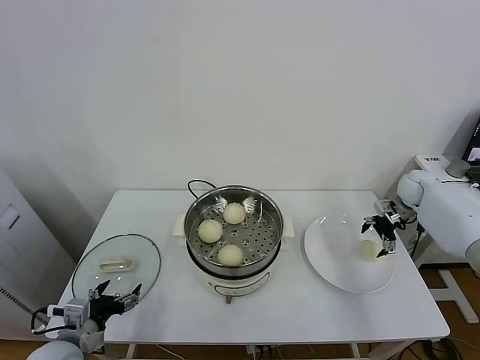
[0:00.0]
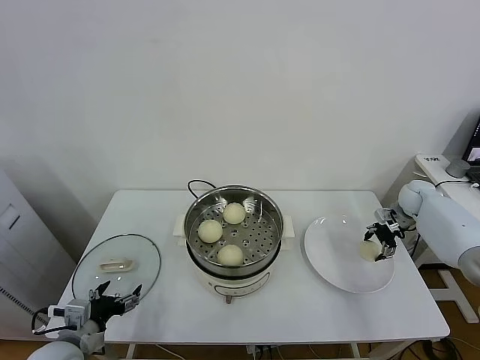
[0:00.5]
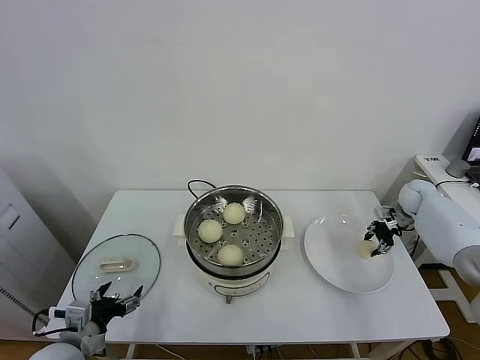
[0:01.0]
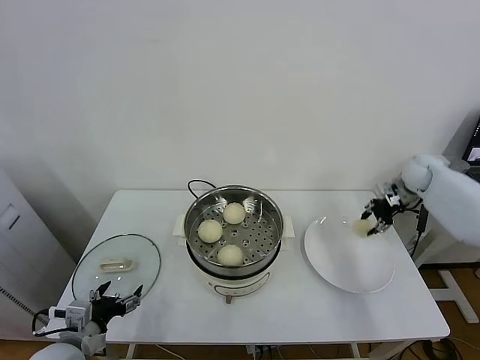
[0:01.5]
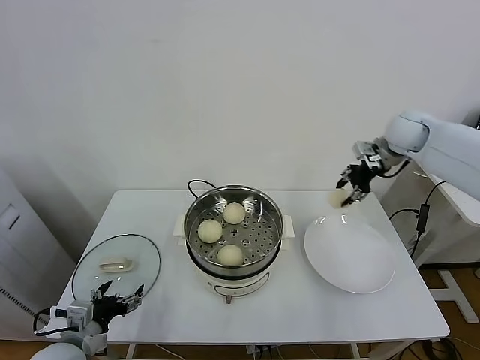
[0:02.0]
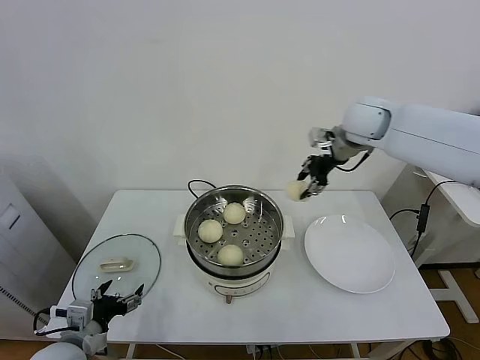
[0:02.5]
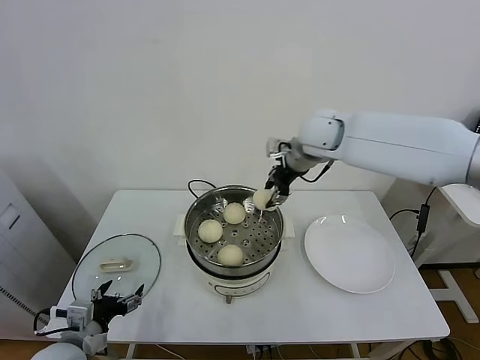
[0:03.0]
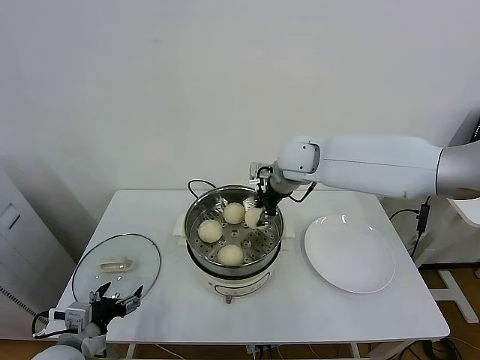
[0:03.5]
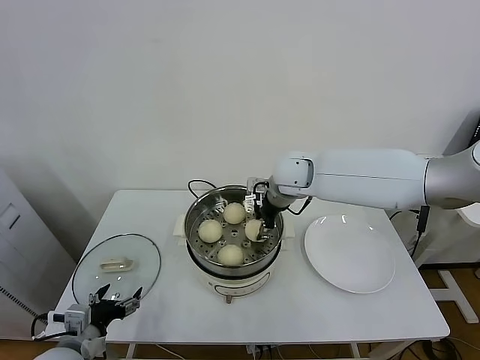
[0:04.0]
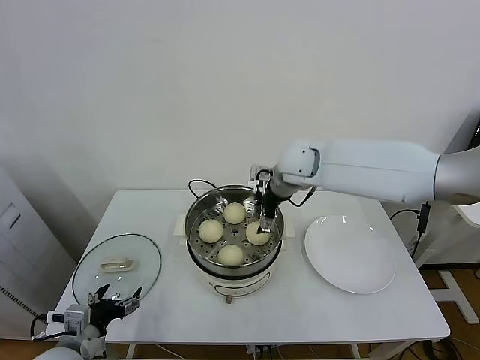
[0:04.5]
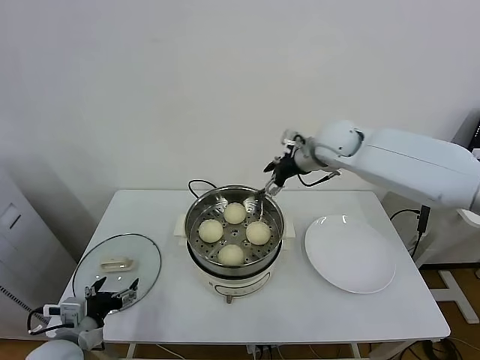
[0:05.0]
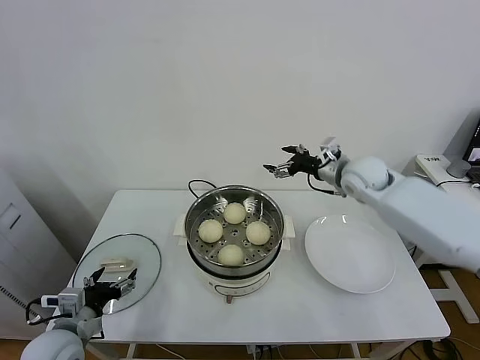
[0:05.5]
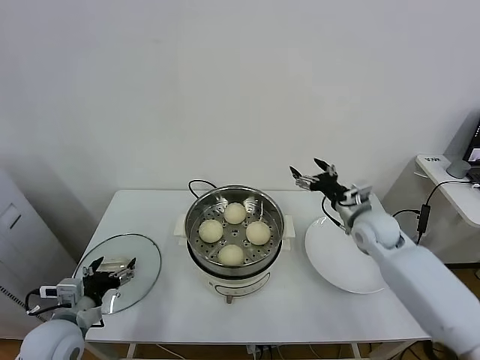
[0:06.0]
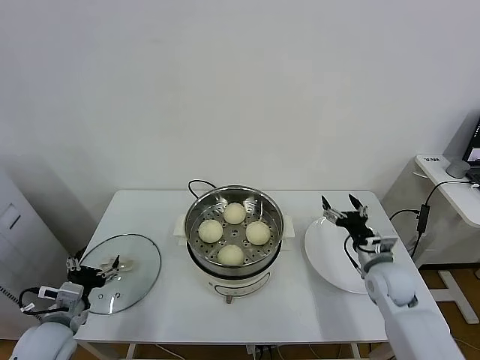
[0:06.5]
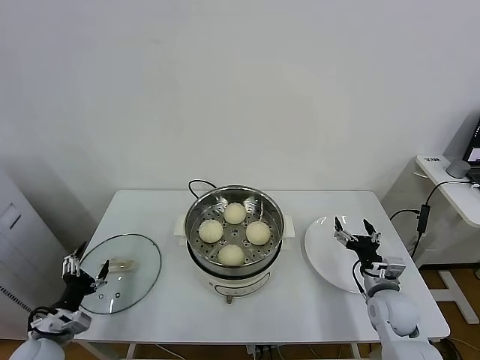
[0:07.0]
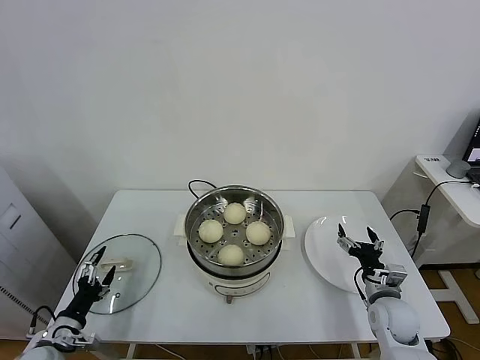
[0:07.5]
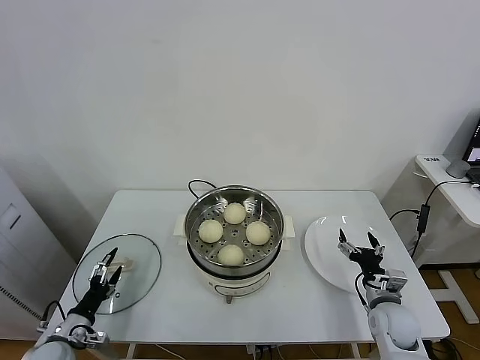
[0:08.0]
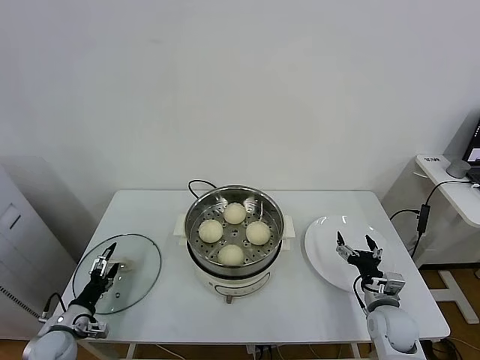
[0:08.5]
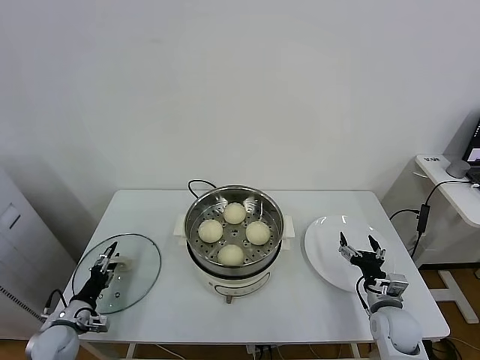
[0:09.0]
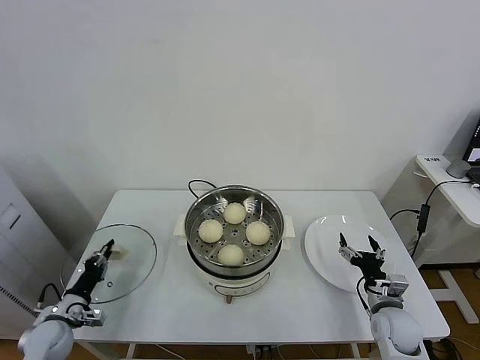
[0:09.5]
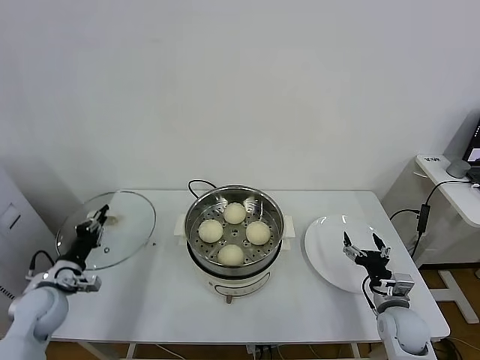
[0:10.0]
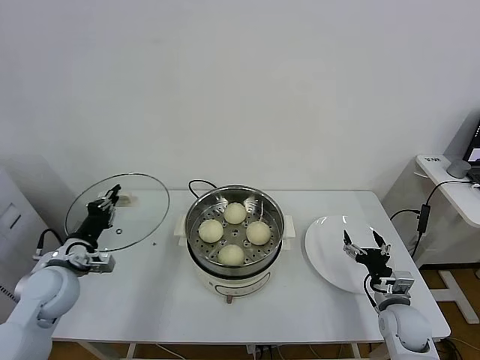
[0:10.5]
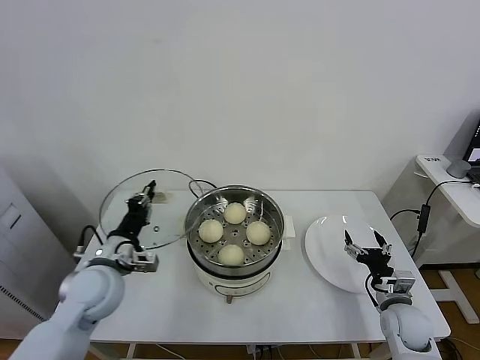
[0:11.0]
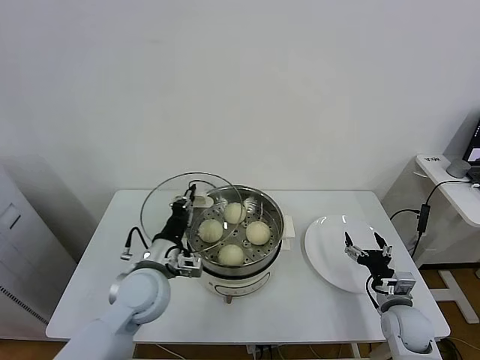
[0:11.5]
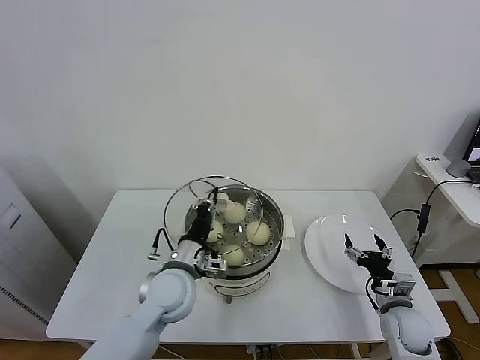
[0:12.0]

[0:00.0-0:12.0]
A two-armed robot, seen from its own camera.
Task of the whole recording: take steamed baozi put them in steamer.
Step, 0:01.0 to 0:04.0: Place the baozi on the steamer with right gripper.
Step, 0:04.5 to 0:09.5: Grasp the pot lid with left gripper.
0:00.0 to 0:02.0: The right gripper goes roughly 20 cm upward and to the left, and closes up.
0:02.0 to 0:04.0: The right gripper is displaced to the left by some 25 cm.
0:04.0 to 0:06.0: The right gripper goes about 25 cm to the right and downward, and opens up.
0:06.0 to 0:08.0: The right gripper heads downward and backward, covering some 20 cm; the left gripper is displaced downward and to the left by about 15 cm.
0:08.0 to 0:10.0: The left gripper is displaced upward and forward by roughly 10 cm, and closes up.
0:10.0 to 0:12.0: The left gripper shifts some 30 cm to the right.

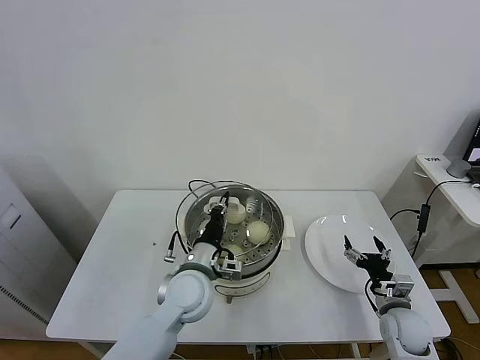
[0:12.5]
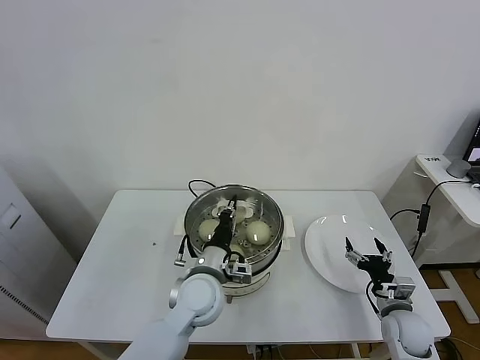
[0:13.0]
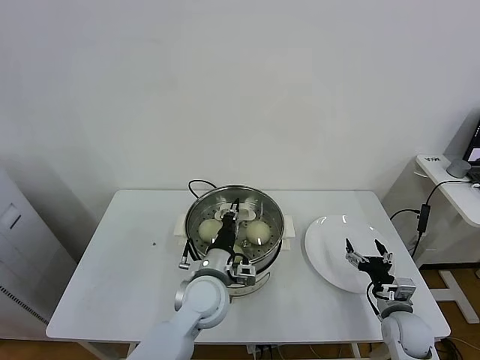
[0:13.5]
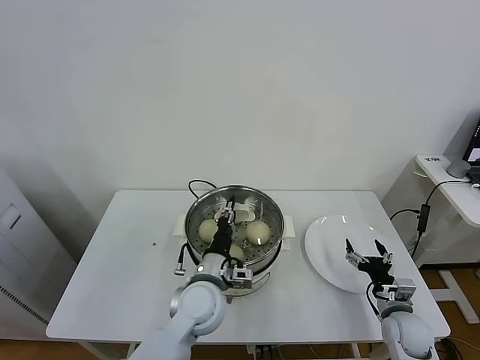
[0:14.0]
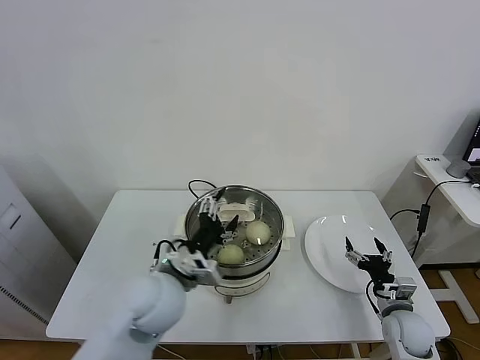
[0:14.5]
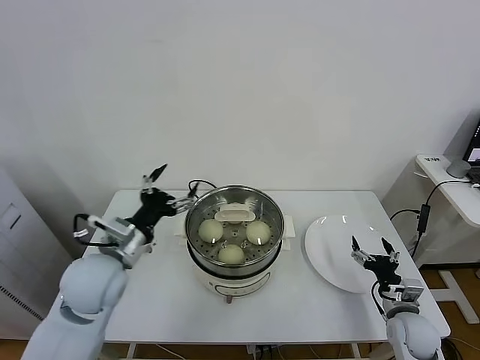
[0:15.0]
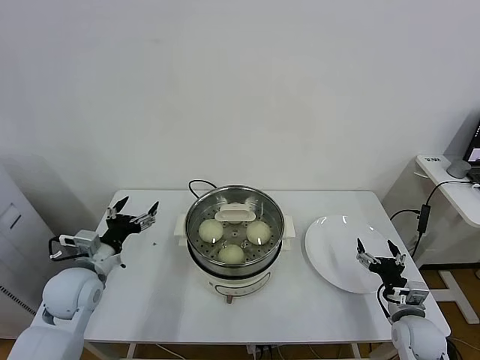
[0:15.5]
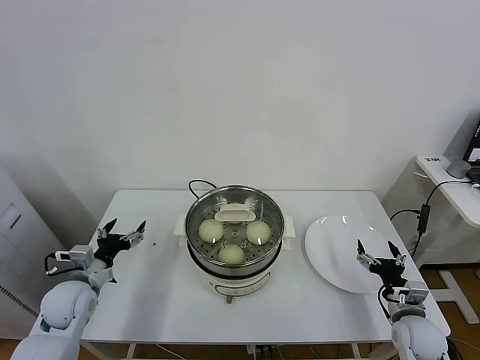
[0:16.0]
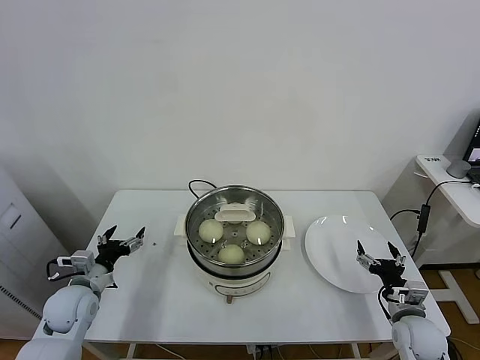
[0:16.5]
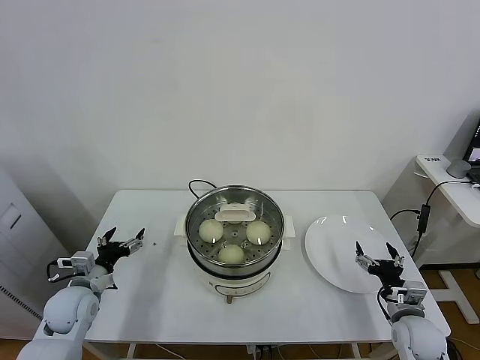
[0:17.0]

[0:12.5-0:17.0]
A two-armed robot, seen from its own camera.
Task of the whole recording: take steamed baozi put them in steamer.
Step, 0:12.5 to 0:14.5: Place the pot lid on the steamer with left gripper.
0:12.5 to 0:14.5: The left gripper changes place by roughly 5 cm, and opens its fingers.
0:14.5 to 0:17.0: The left gripper travels to the left and downward by some 25 cm.

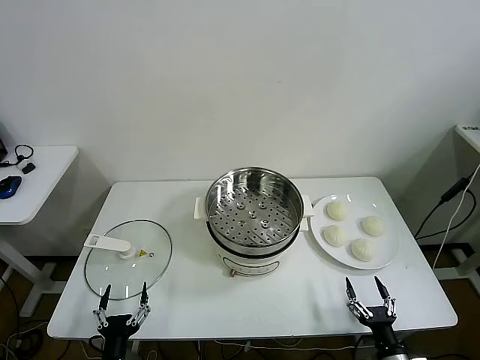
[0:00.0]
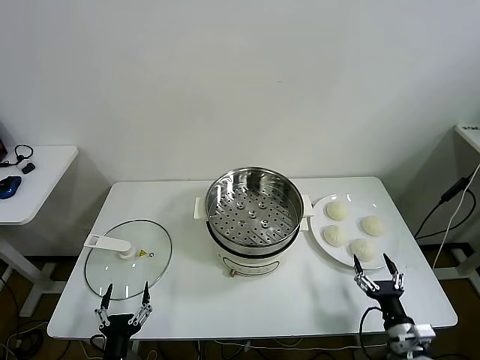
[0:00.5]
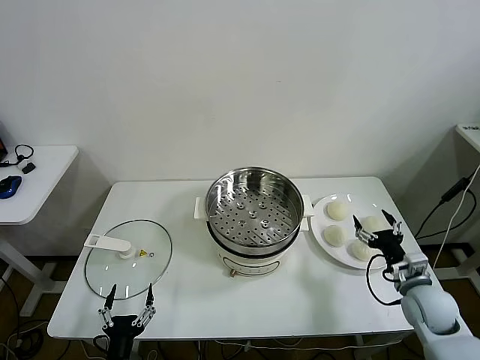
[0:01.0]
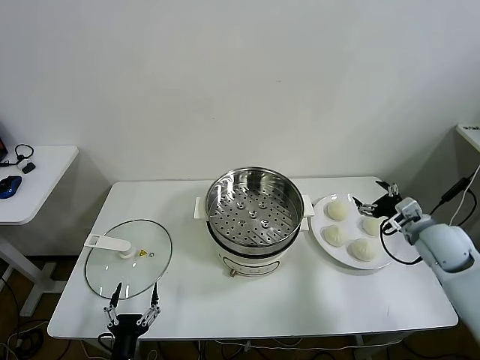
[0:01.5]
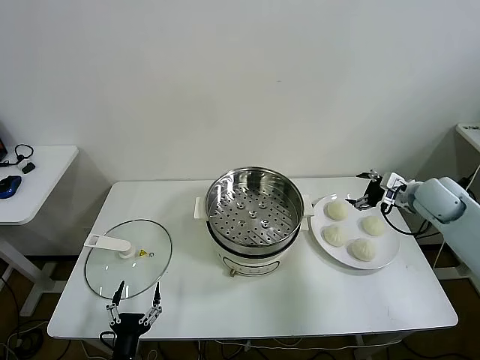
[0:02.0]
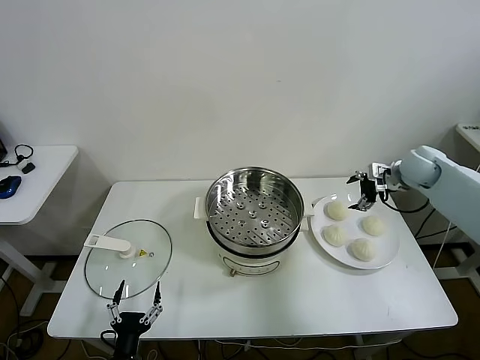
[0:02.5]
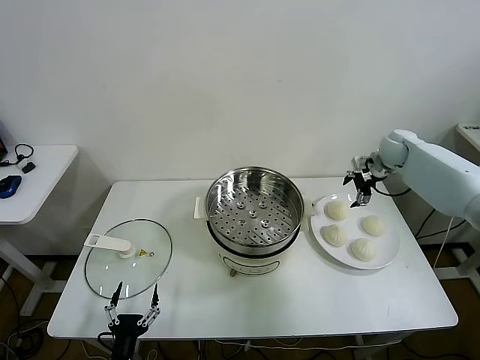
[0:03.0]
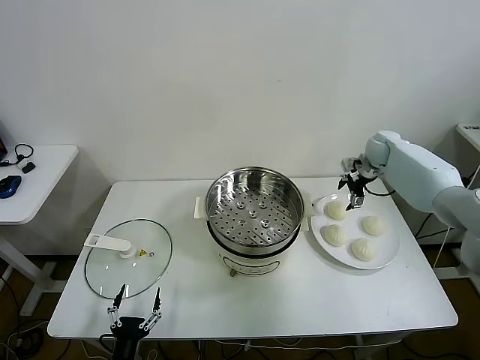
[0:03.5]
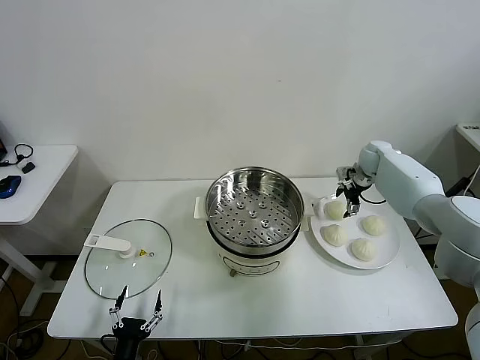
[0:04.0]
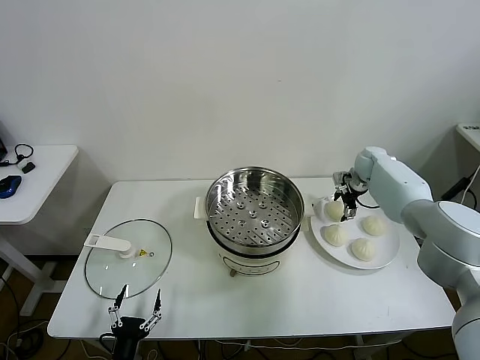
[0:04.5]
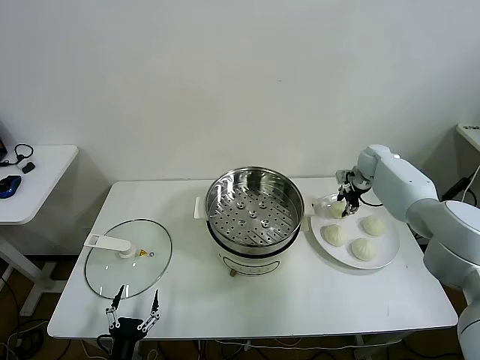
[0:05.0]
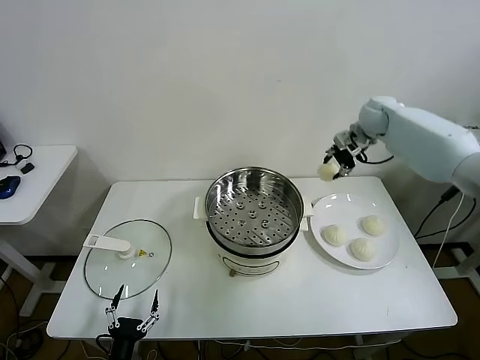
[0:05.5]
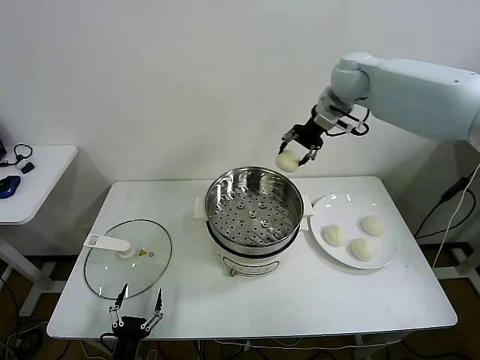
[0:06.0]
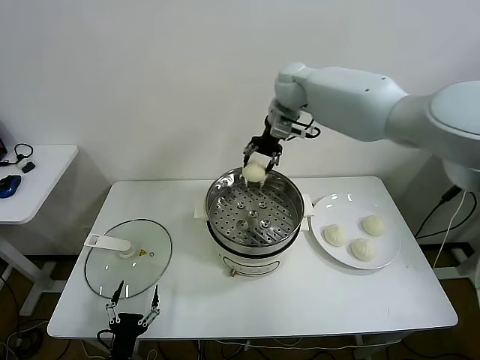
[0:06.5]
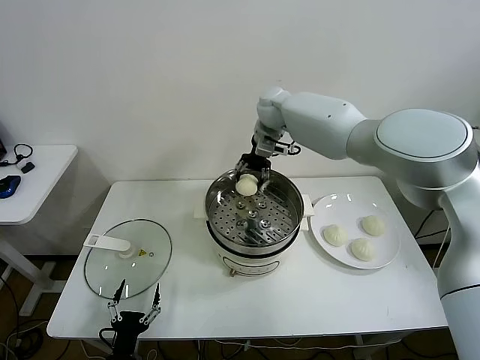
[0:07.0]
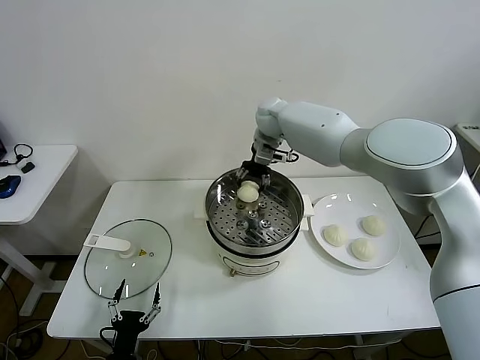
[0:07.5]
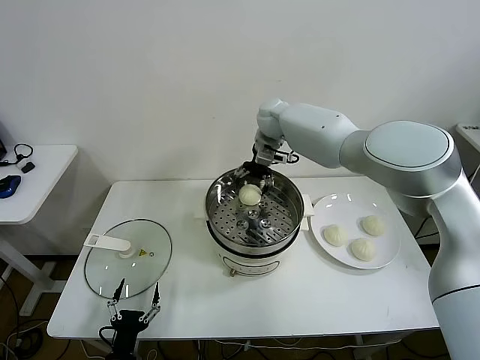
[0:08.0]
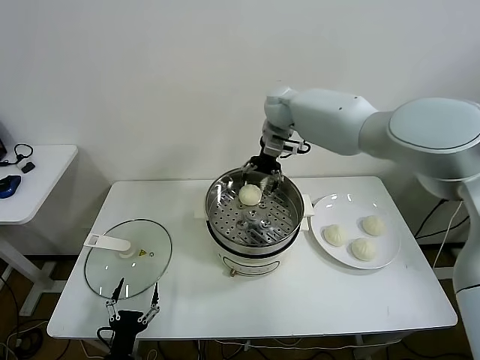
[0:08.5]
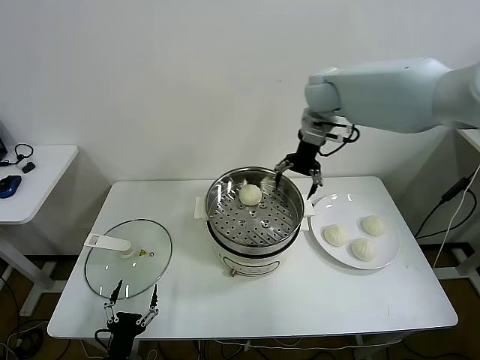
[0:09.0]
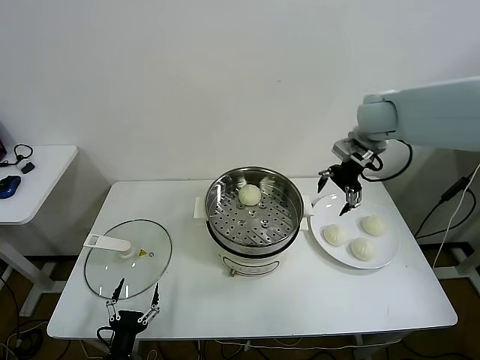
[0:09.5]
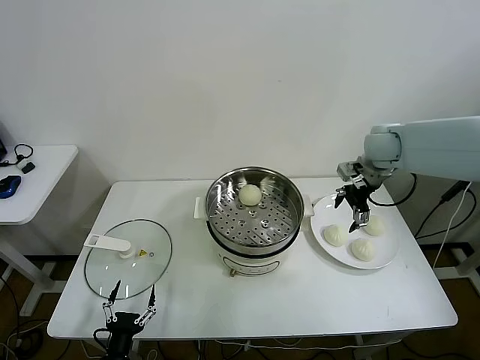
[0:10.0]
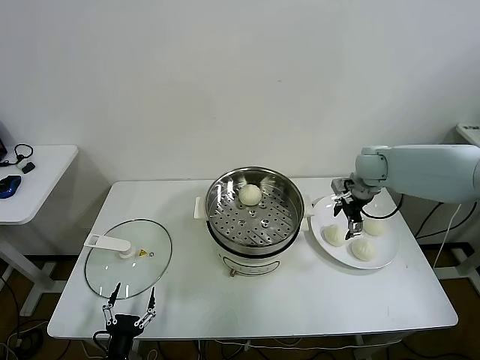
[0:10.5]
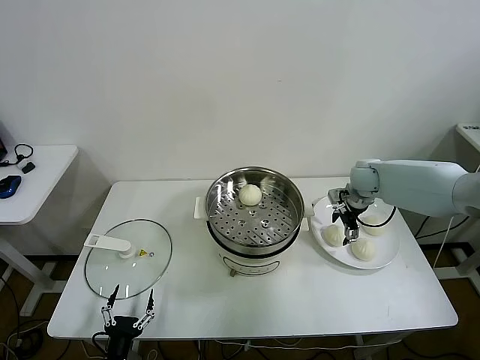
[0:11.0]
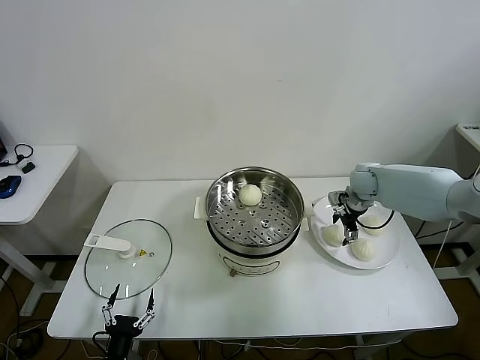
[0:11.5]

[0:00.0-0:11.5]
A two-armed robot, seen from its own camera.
Task of the whole recording: take steamed baozi put them in steamer.
Step, 0:00.0 to 0:04.5: Grasp the baozi in the plate with right gripper.
Step, 0:05.0 to 0:08.0: Place the baozi on the steamer with right gripper.
0:02.0 to 0:04.0: The right gripper is displaced forward and downward by about 15 cm.
0:04.0 to 0:06.0: The right gripper goes some 30 cm upward and to the left, and closes.
0:06.0 to 0:07.5: The right gripper moves downward and to the left, approximately 15 cm.
0:07.5 to 0:09.5: The right gripper shifts approximately 25 cm to the right and backward, and opens.
0:09.5 to 0:11.5: The right gripper heads downward, covering about 20 cm.
